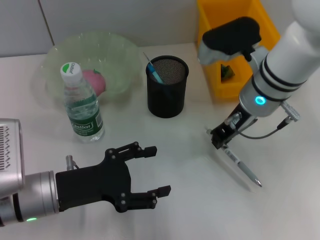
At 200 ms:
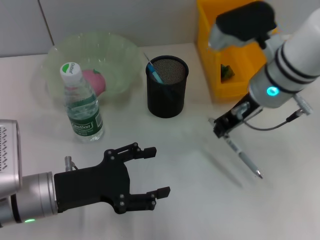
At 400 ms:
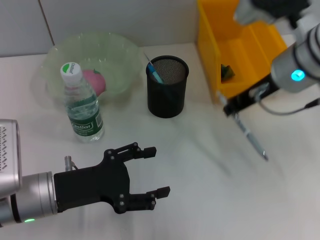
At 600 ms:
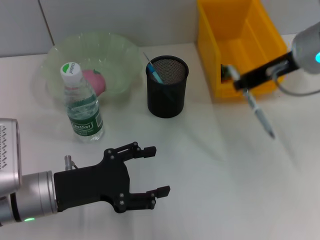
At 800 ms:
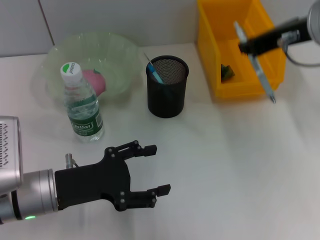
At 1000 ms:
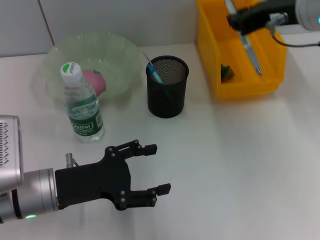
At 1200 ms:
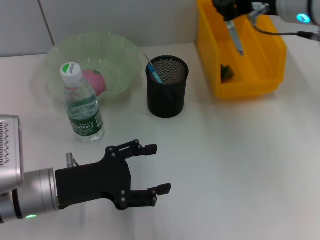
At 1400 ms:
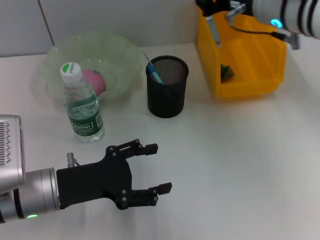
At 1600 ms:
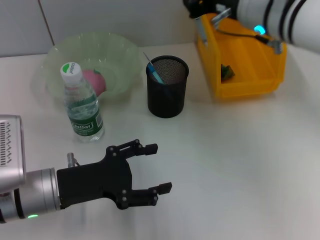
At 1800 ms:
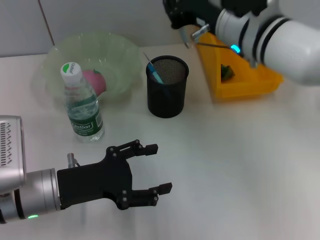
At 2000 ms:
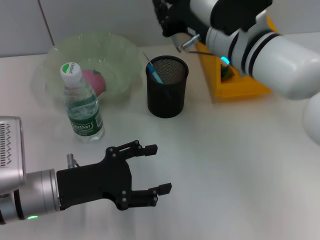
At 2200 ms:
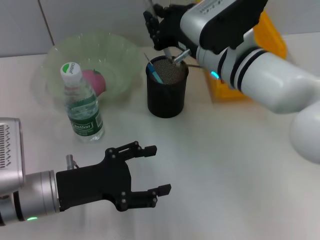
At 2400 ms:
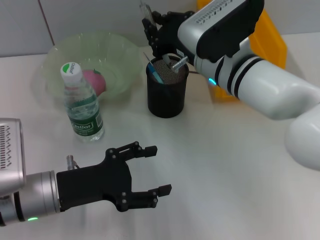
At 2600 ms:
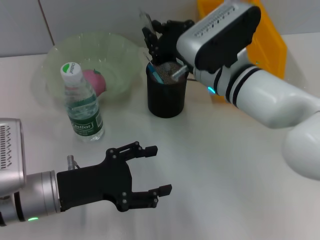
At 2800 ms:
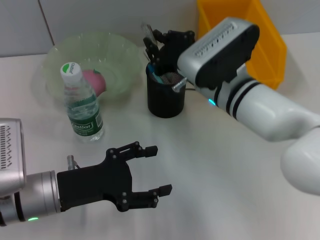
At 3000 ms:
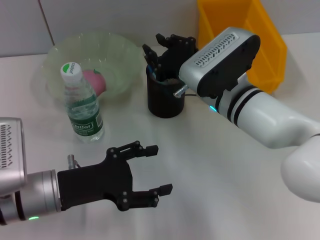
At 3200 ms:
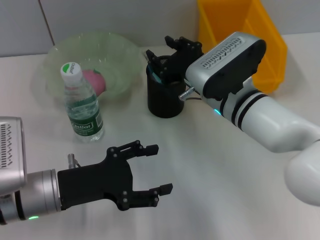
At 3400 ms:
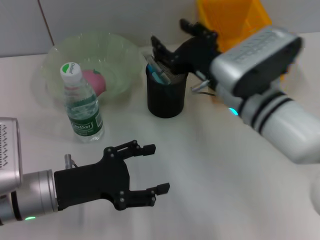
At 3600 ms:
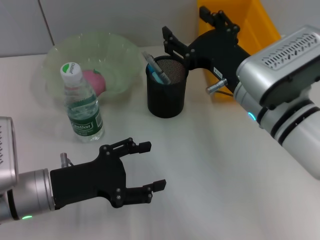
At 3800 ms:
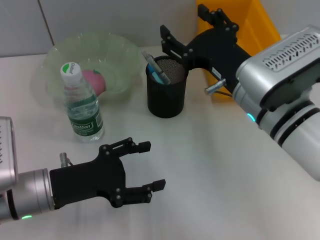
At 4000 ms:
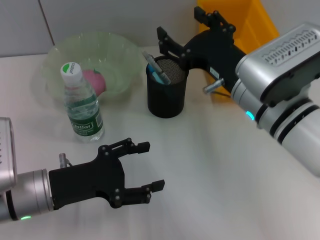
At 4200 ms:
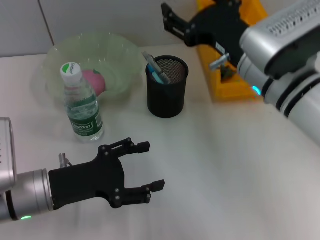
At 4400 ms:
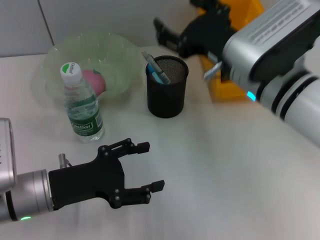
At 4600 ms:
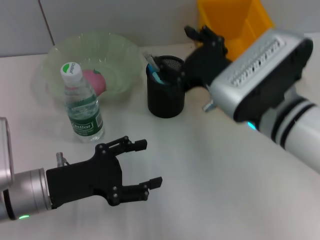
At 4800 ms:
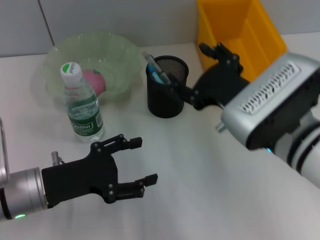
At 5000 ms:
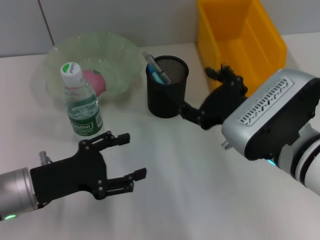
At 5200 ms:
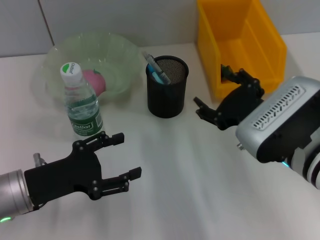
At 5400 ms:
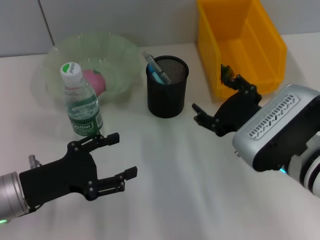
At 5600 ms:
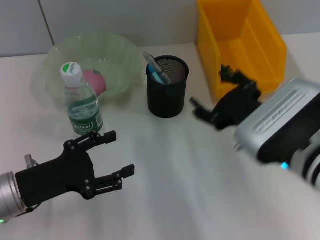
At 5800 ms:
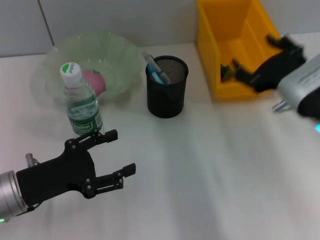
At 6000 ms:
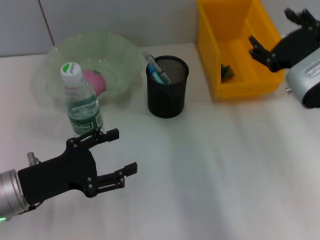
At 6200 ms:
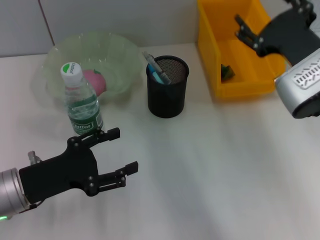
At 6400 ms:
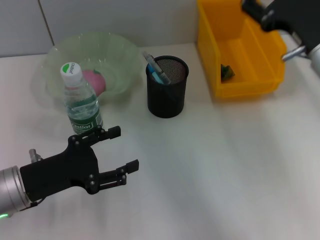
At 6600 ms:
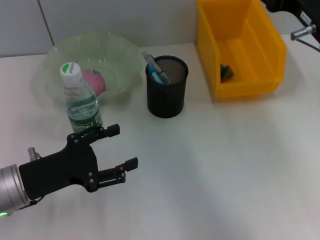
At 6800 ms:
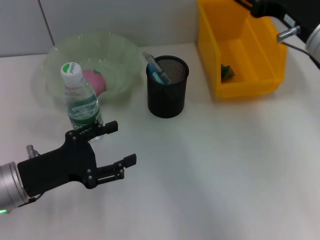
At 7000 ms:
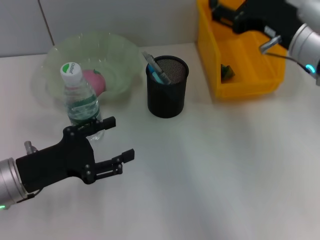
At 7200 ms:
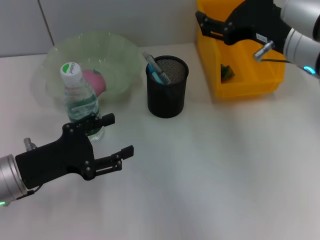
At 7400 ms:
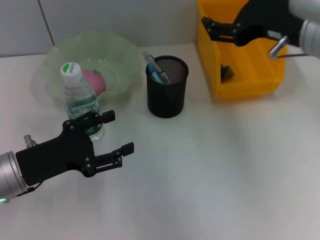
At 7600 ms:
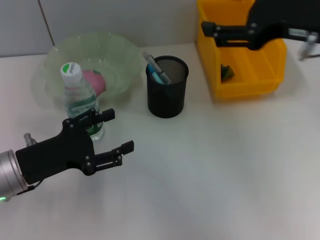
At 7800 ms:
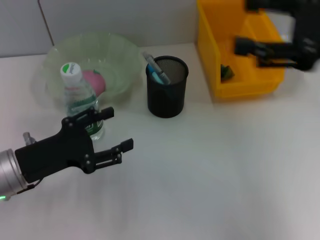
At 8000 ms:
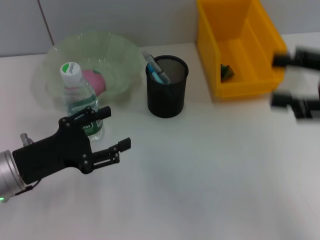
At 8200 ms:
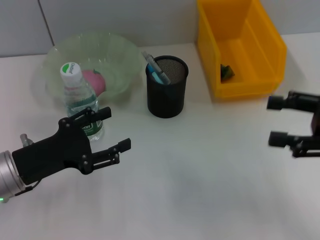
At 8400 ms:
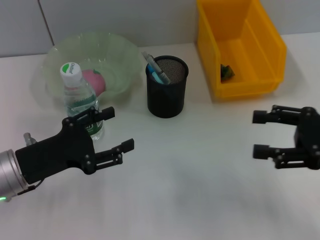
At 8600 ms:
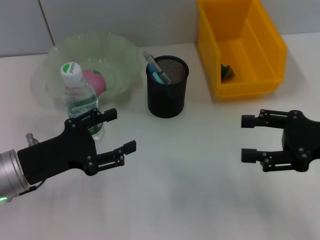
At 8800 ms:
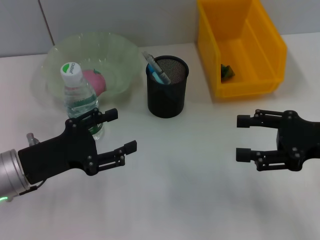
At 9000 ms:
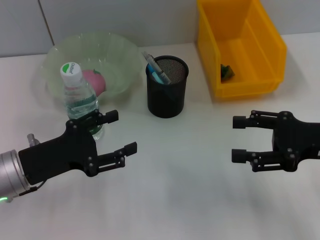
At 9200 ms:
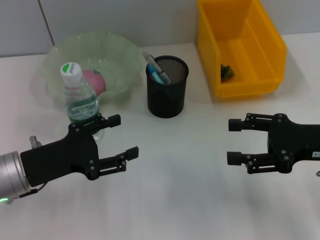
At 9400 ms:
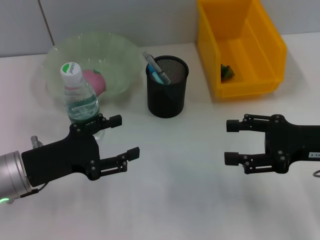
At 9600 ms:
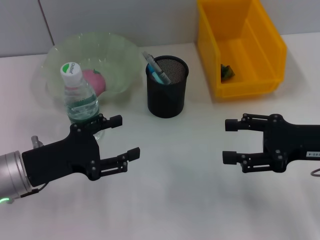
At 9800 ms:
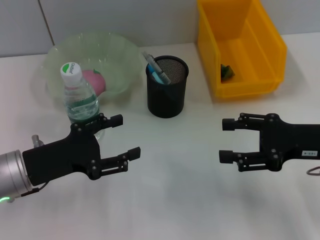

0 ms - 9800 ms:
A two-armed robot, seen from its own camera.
Step, 0 ms - 3400 ms: Place the gray spring-action pen into the pen holder with the right hand.
0 ms - 1400 ms: The right gripper shifts some 10 cm upward.
1400 ms - 2800 ms: The right gripper goes roughly 15 cm downward and to the left.
2800 ms - 4200 ms: The right gripper heads upward, covering about 5 cm, and opens its fingers.
4200 ms - 5600 ms: The right gripper moves backward, approximately 5 cm.
5600 ms - 7000 ms: The right gripper heads forward and upward, covering roughly 10 cm.
7000 ms - 8400 ms: The right gripper is displaced to the right, backward and downward by roughly 15 cm.
8400 ms - 9800 ms: The grippers make only small movements.
